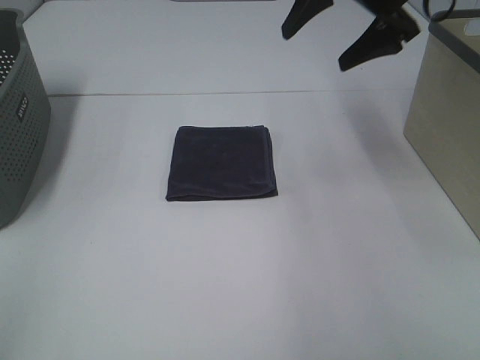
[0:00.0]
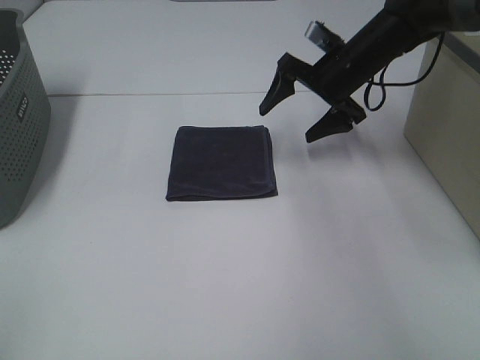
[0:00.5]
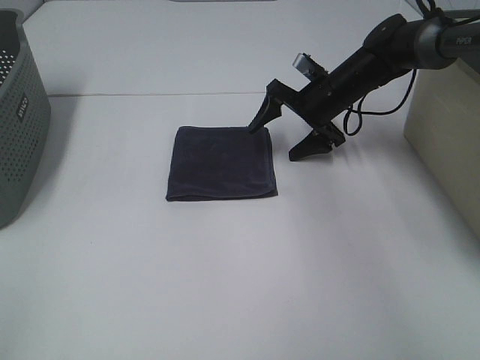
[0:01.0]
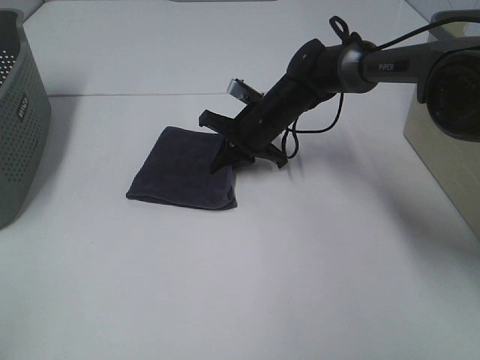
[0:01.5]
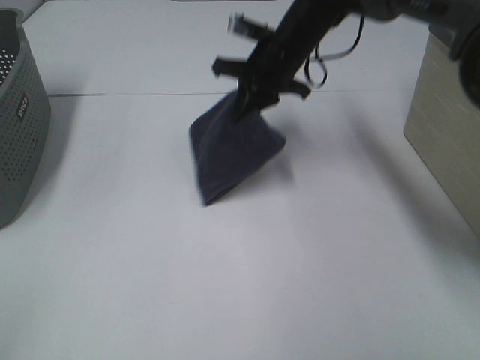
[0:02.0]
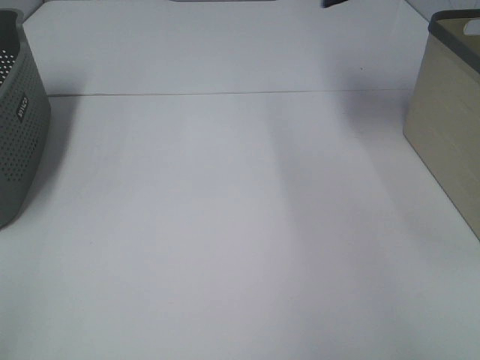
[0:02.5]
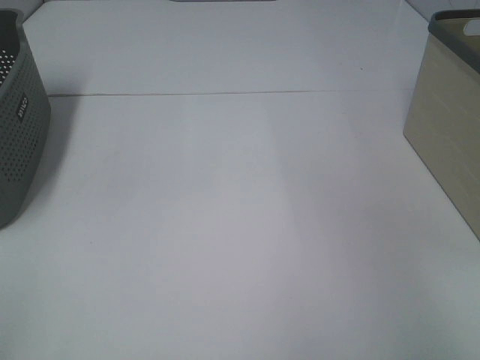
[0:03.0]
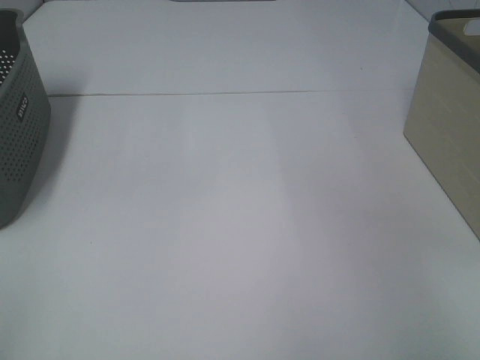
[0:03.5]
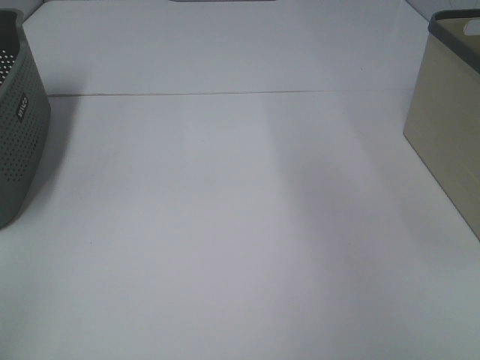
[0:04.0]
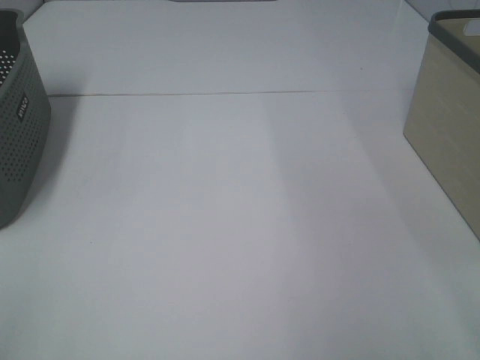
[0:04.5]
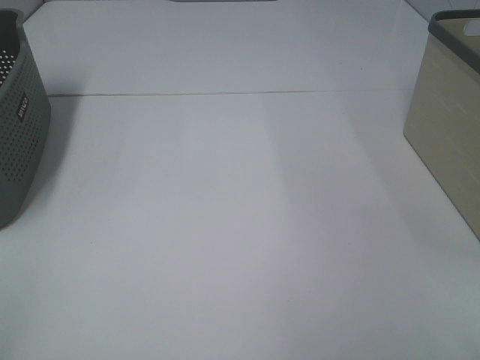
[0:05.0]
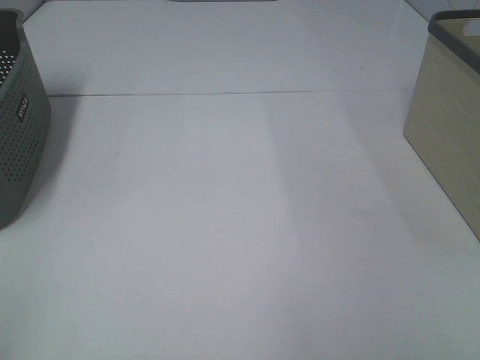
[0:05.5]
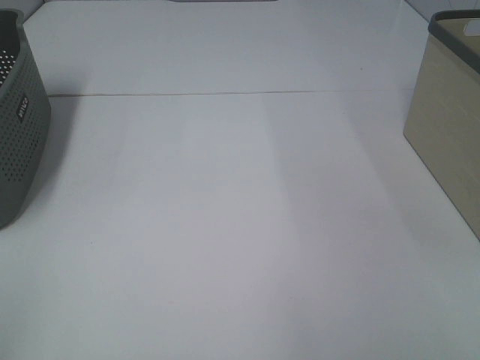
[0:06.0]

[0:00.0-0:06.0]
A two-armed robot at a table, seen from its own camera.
Step, 0:02.0 to 0:03.0: Right hand: place the grey towel in right basket.
0:00.0 to 0:02.0: The right gripper heads to the left and downward, covering some 15 cm, and closes its fingers.
0:02.0 to 0:04.0: The right gripper goes about 30 cm to the right, upward and backward, and opens up.

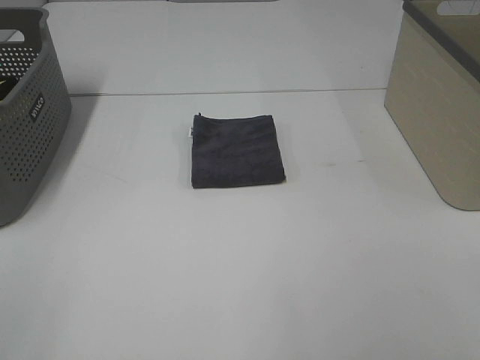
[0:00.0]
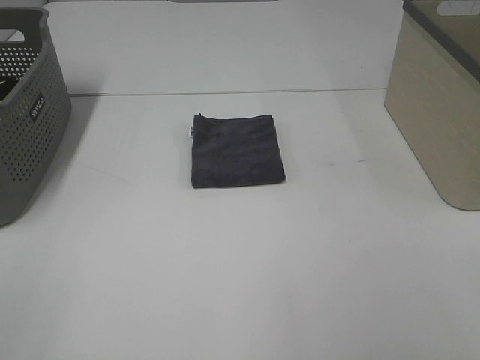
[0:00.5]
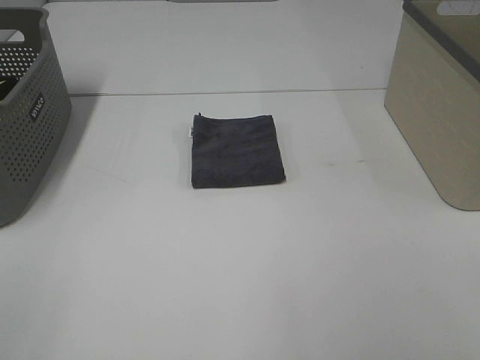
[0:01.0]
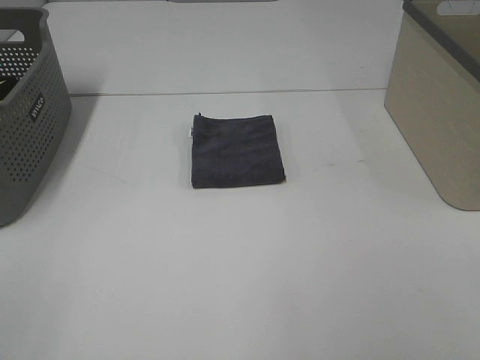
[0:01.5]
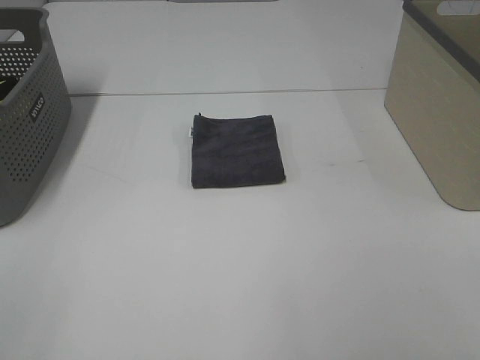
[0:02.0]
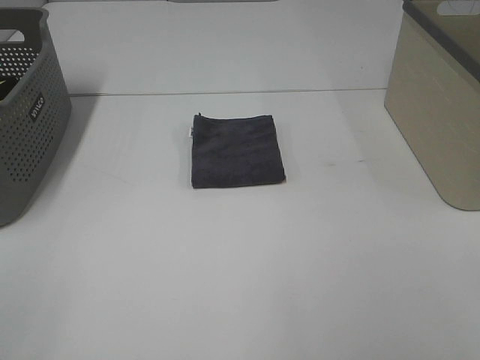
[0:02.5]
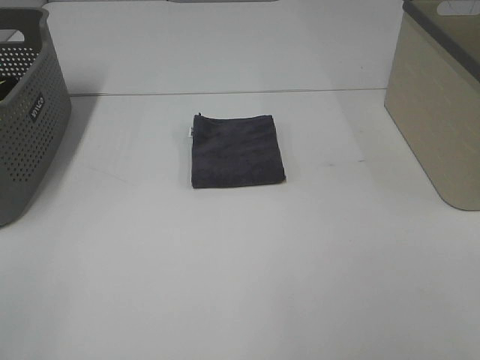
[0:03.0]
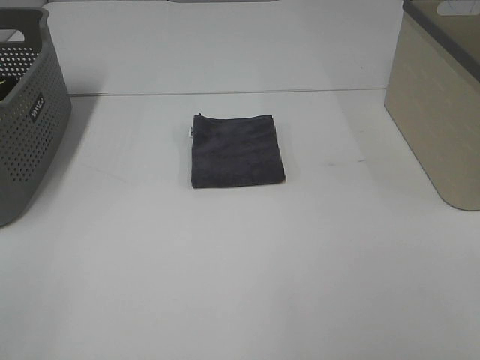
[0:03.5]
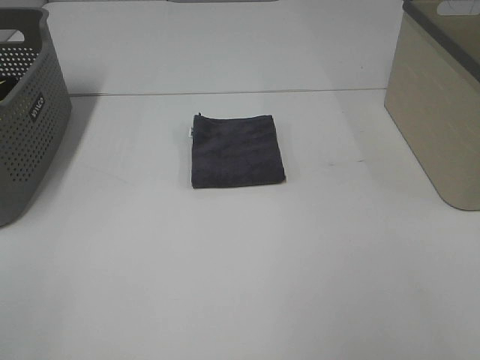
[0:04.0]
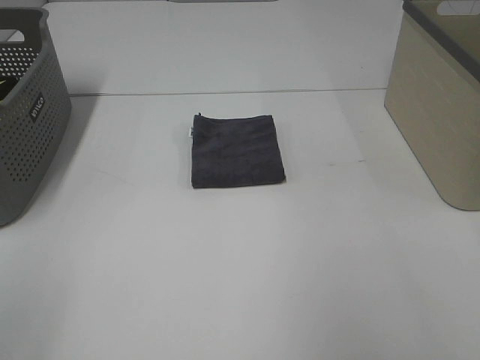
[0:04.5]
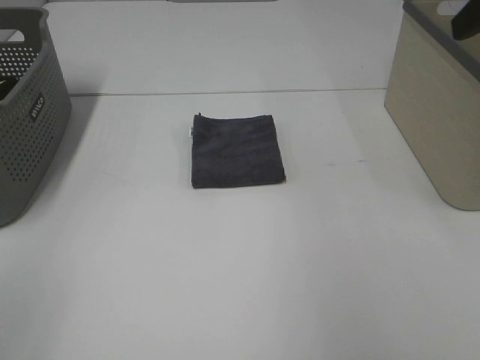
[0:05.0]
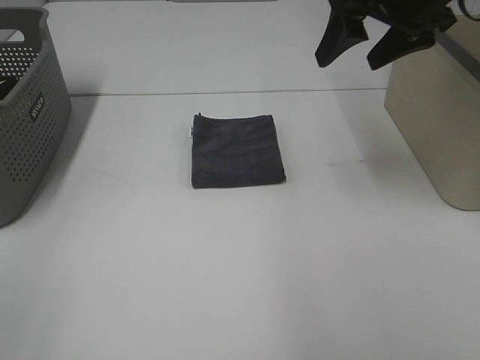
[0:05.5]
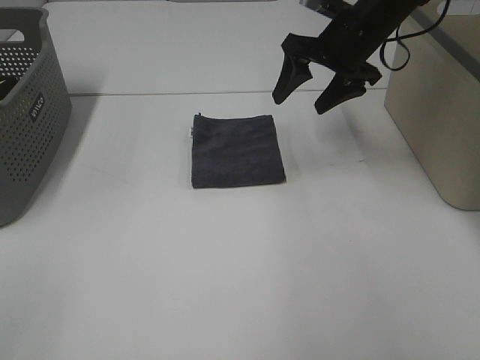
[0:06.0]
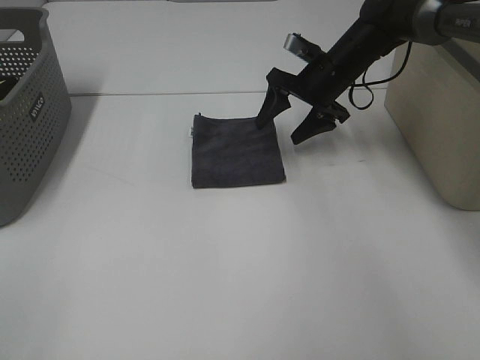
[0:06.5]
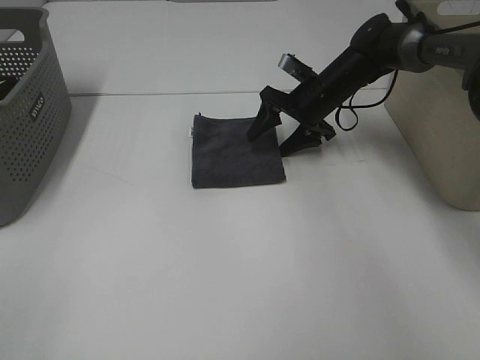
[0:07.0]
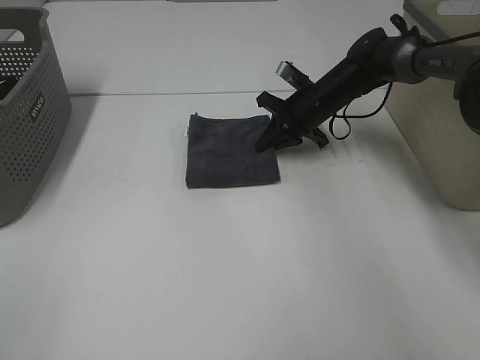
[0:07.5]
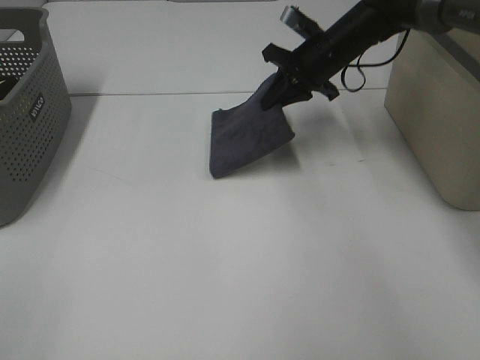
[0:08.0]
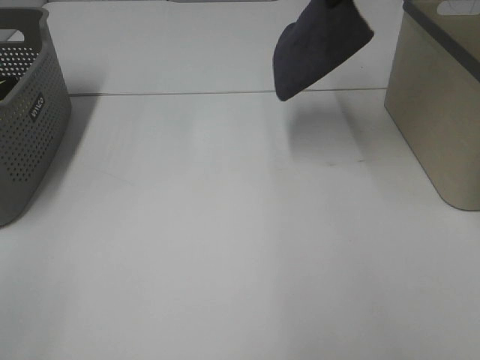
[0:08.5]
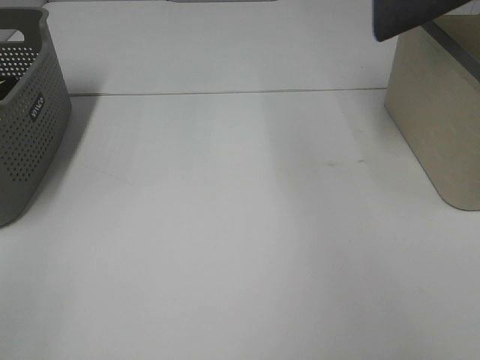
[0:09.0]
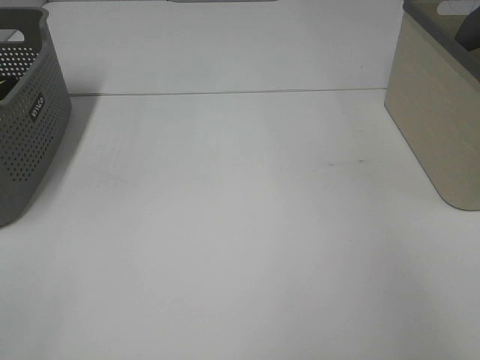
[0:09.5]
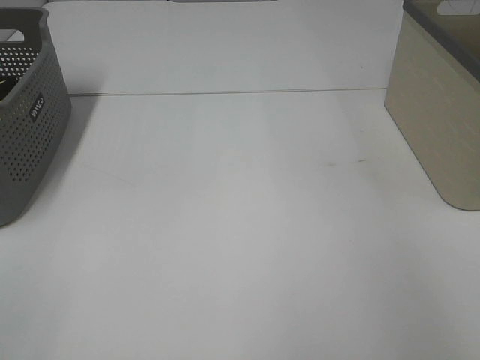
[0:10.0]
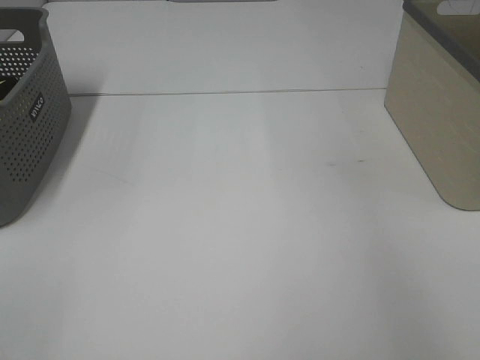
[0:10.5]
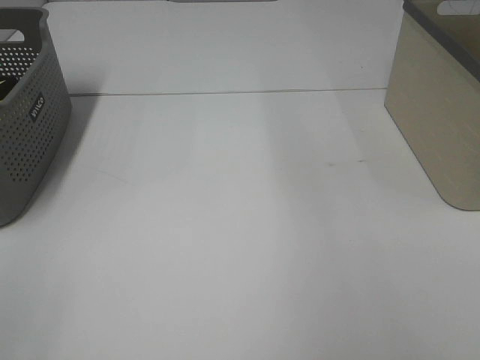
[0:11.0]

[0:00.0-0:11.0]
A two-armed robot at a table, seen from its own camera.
Step, 0:00.0 to 0:07.5: Right hand: grab the folded grey towel.
Step, 0:08.0 to 0:10.0: Right hand: place the grey towel in right basket.
0:00.0 to 0:03.5: Neither gripper changes place.
0:03.5 to 0:05.5: The right gripper is displaced forward by about 40 cm.
0:05.5 to 0:07.5: The right gripper shifts some 25 cm downward and forward, and closes up.
0:07.5 to 0:09.0: The right gripper goes approximately 40 cm upward and to the right.
0:09.0 to 0:11.0: The right gripper goes to the right and returns, about 10 cm each way, and opens its fingers.

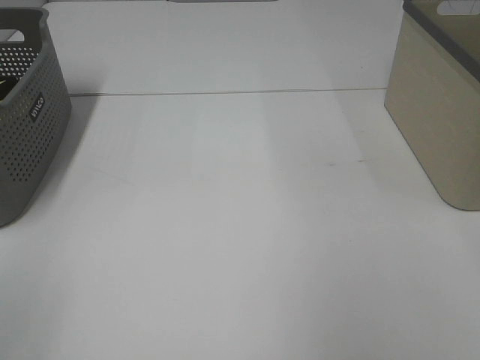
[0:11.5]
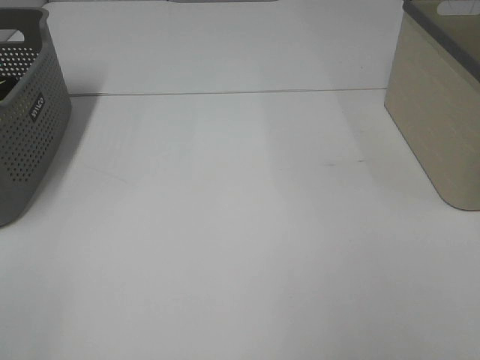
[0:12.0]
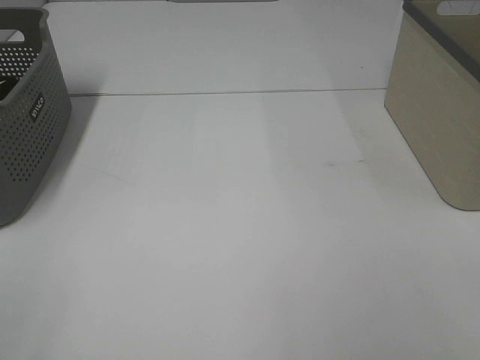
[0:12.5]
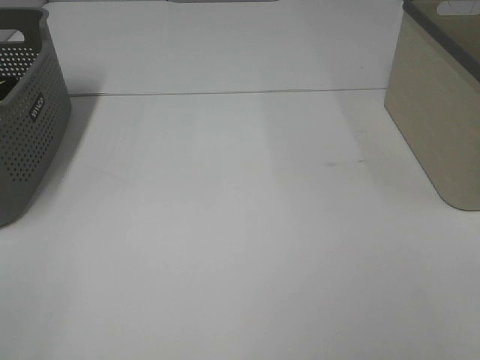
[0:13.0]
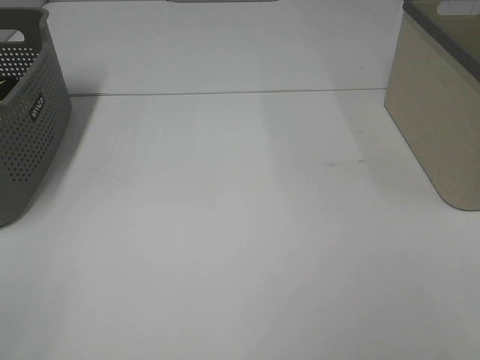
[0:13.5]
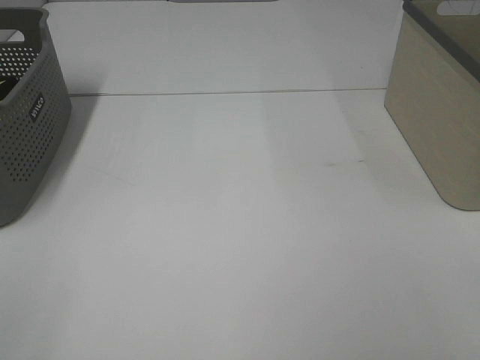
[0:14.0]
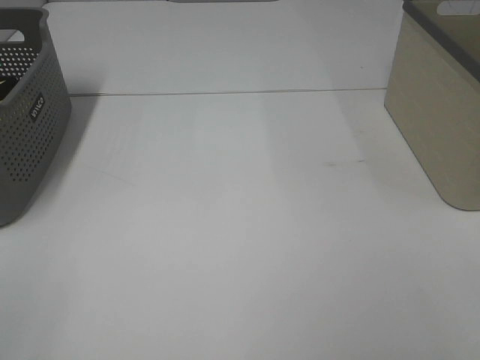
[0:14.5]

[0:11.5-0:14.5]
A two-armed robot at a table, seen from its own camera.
0:13.0 to 0:14.5: Both grippers stay about where they are.
